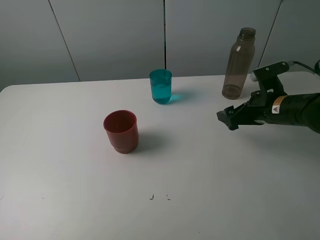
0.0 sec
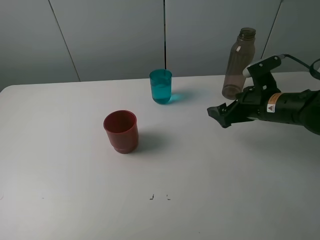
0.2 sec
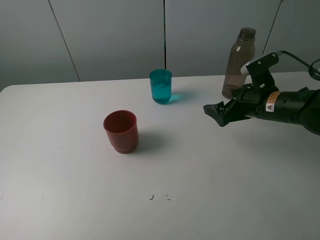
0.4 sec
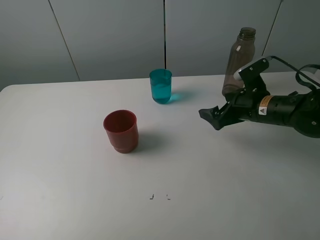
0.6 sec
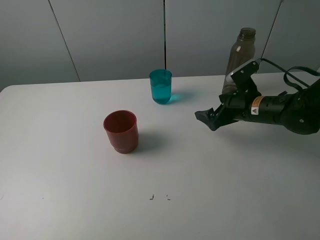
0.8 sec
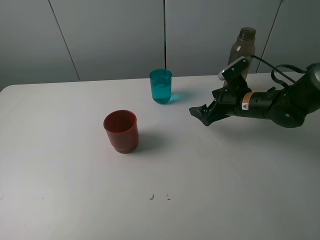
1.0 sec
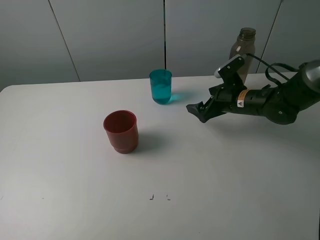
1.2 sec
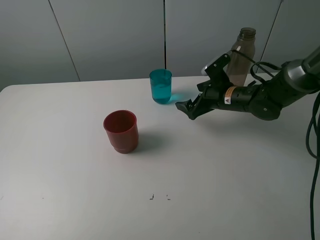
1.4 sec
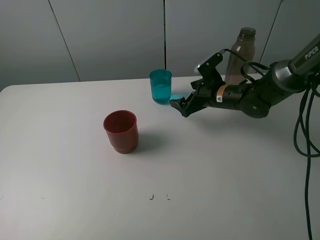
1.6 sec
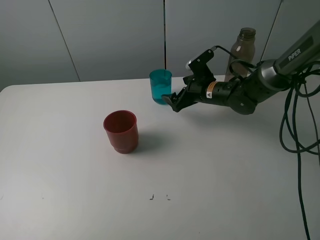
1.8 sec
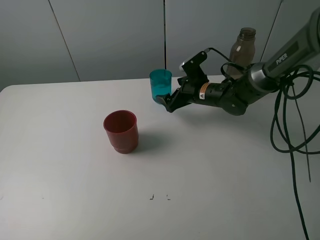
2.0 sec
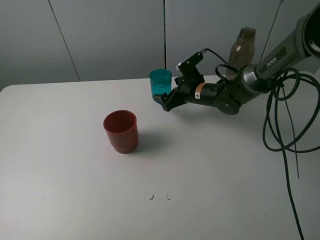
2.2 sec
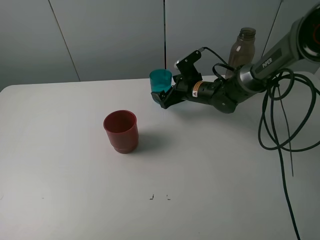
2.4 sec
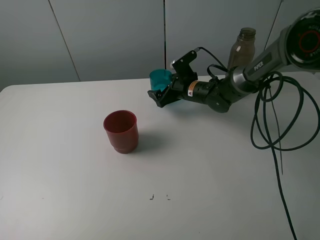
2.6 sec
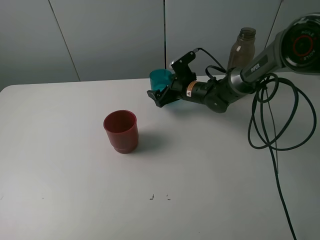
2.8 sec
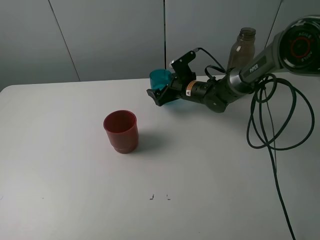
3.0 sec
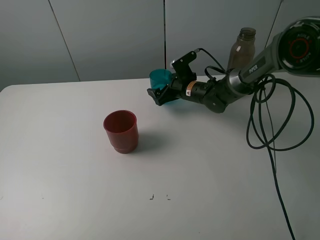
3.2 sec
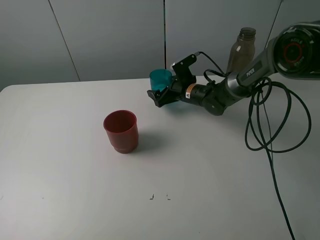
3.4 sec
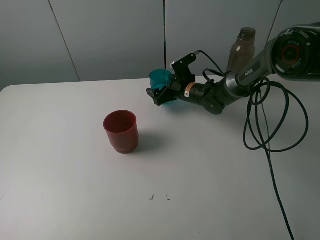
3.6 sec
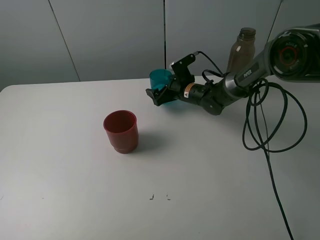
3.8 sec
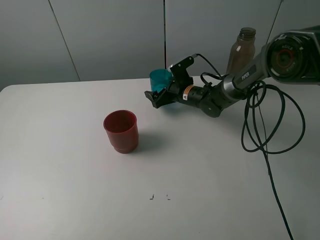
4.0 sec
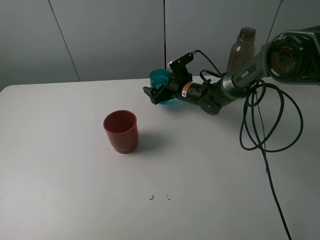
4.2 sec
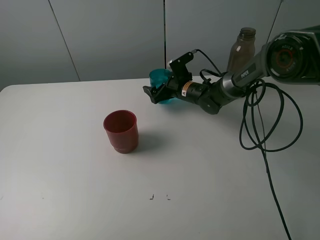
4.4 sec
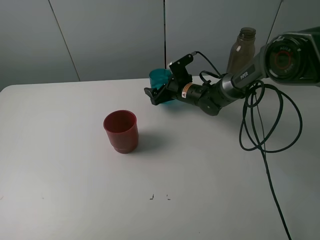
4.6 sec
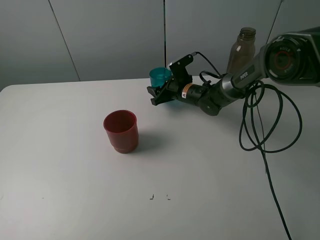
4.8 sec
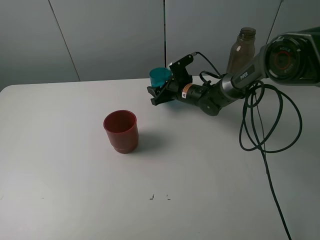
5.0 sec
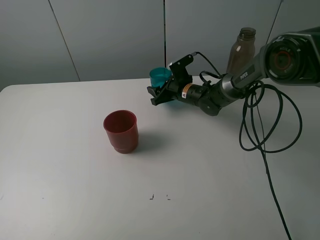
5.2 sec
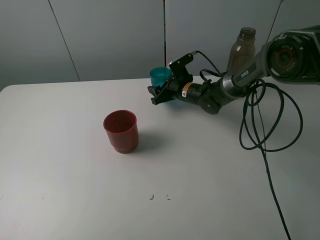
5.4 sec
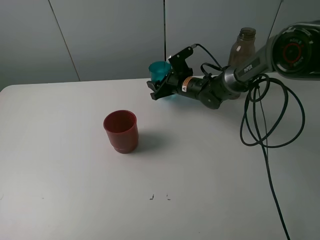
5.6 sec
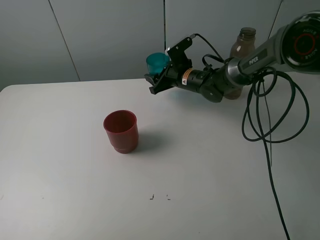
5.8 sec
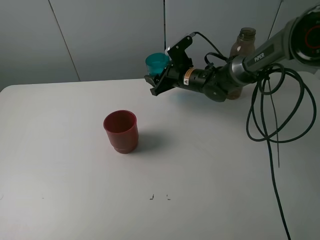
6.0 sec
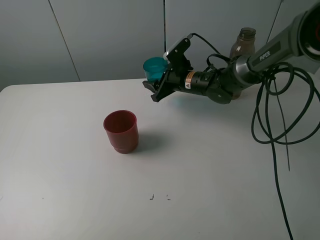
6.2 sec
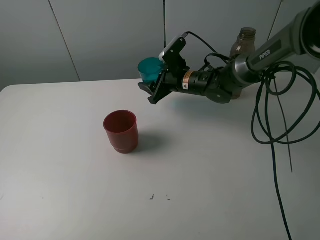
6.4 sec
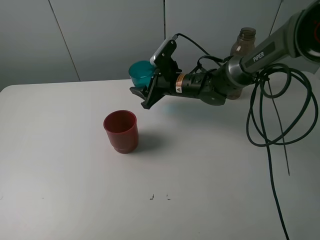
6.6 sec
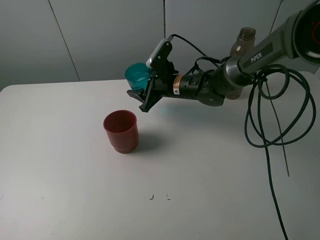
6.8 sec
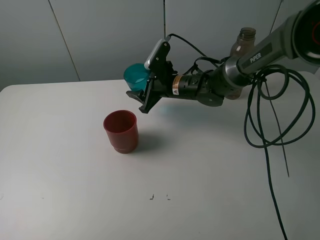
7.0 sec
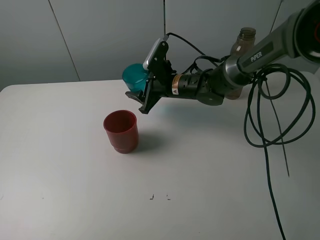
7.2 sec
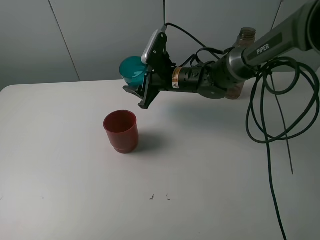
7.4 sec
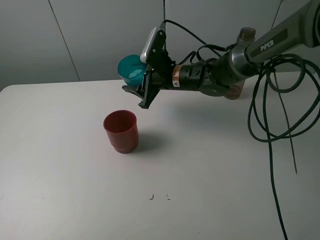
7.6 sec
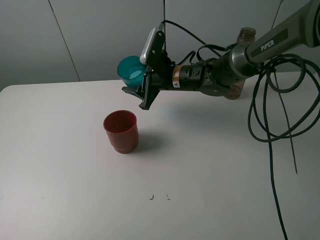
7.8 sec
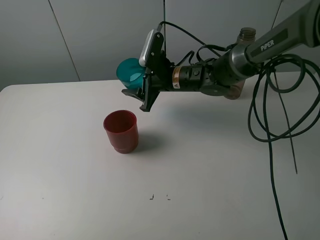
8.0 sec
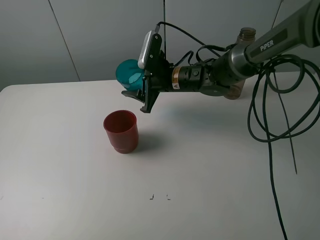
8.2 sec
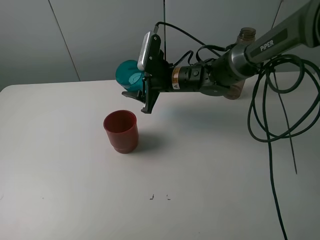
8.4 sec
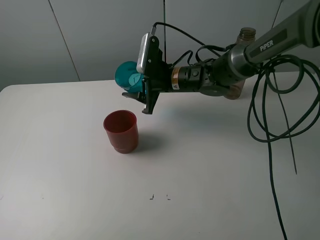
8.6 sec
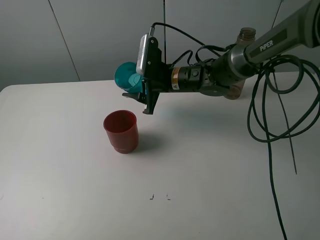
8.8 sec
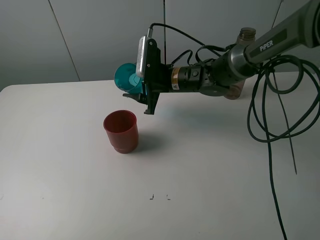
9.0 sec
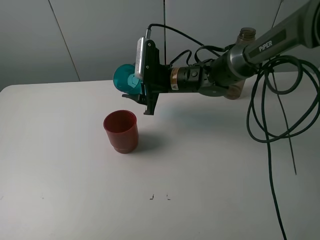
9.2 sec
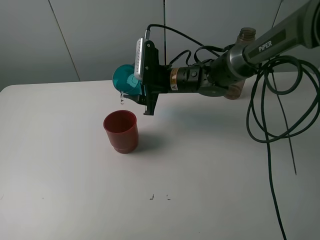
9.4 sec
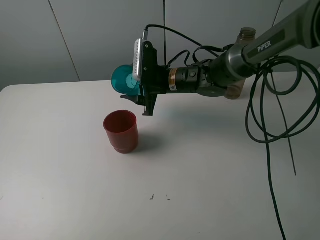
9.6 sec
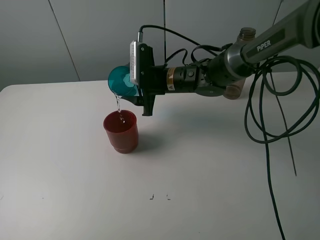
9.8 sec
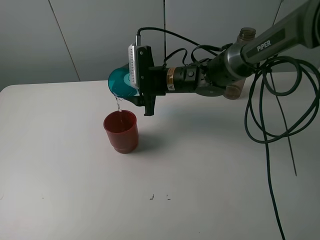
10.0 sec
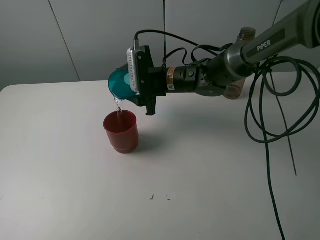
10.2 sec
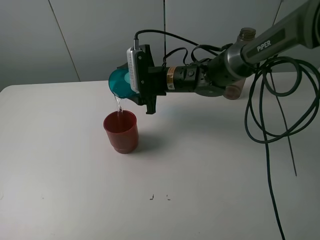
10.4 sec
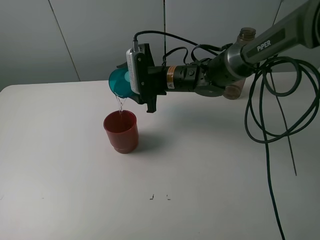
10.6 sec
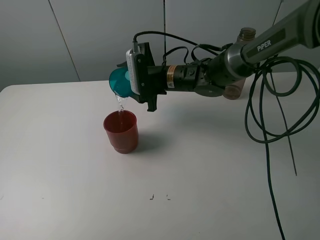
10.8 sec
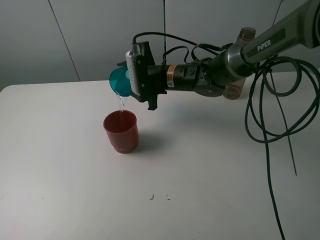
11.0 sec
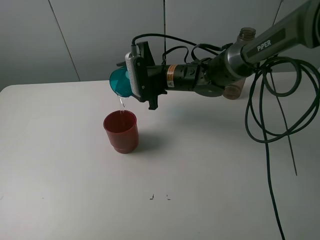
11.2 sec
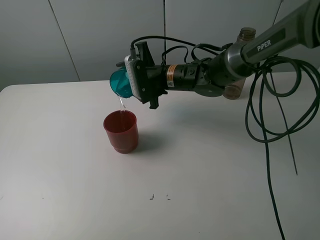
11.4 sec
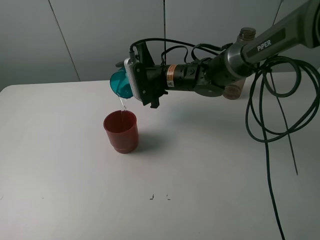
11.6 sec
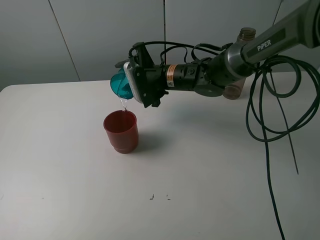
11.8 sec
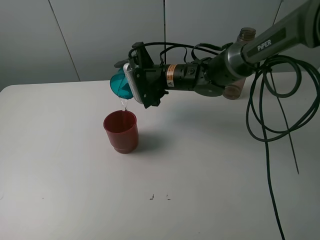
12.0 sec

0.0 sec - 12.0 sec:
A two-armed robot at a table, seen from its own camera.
Task of the whole recording: pick up the bottle and pour water into the cup, then pick up the cup containing water and pour it into another cup.
Step, 0.0 sec - 5.0 sec: Grasp the blue cup with the right gripper.
0.0 sec - 1.6 sec: The right gripper goes roughly 15 cm forward and to the left.
1.6 sec - 3.0 sec: The right gripper moves to the left and forward, about 10 cm.
3.0 sec - 4.4 sec: The grippers make only small movements.
4.4 sec - 6.0 sec: The right gripper closes.
6.0 sec - 7.6 sec: The right gripper moves about 5 cm.
7.6 sec - 9.0 sec: The grippers stay close to where they were, moving slightly.

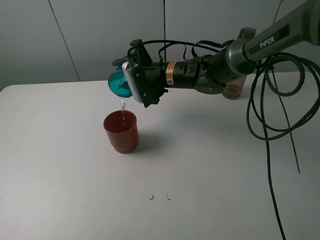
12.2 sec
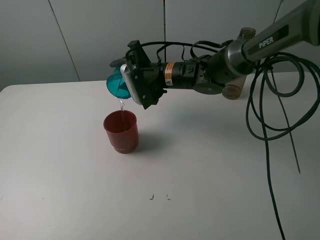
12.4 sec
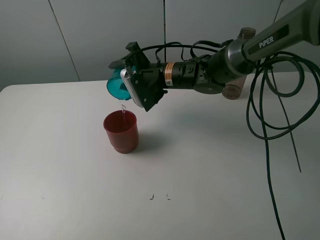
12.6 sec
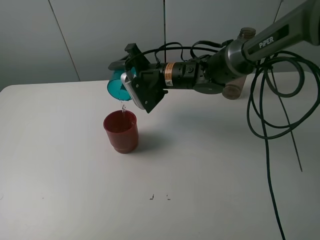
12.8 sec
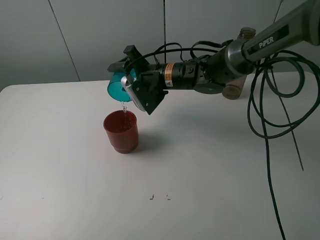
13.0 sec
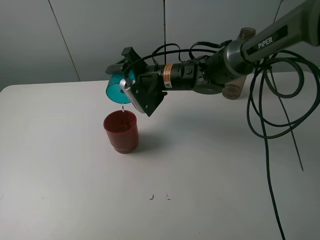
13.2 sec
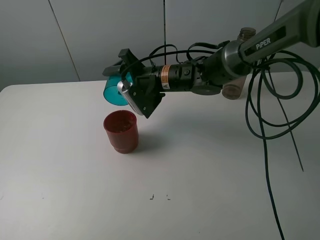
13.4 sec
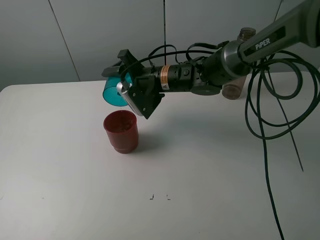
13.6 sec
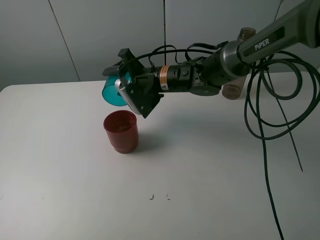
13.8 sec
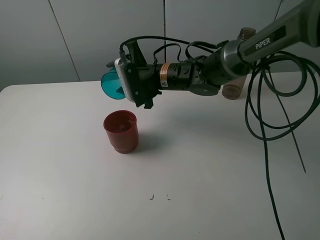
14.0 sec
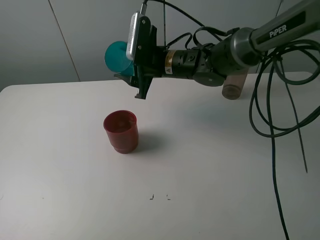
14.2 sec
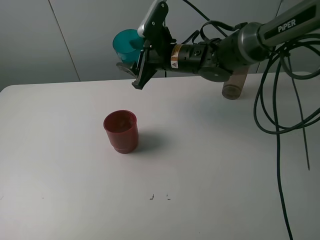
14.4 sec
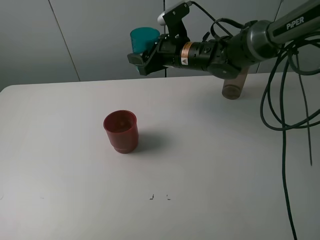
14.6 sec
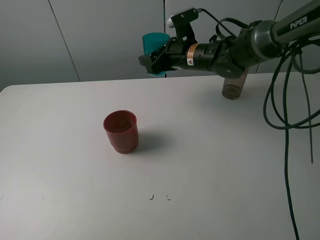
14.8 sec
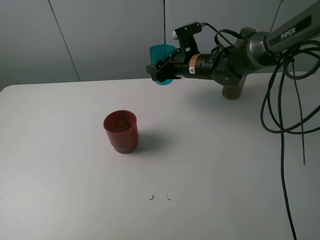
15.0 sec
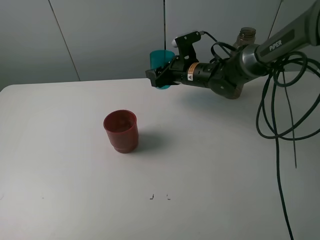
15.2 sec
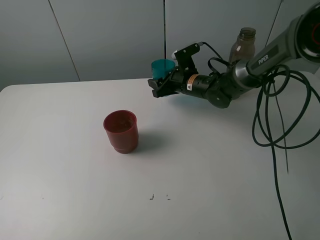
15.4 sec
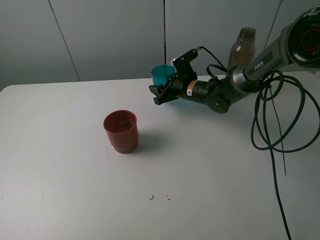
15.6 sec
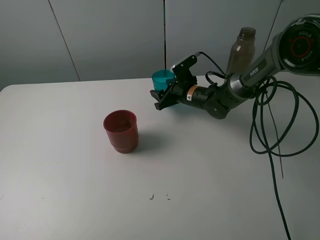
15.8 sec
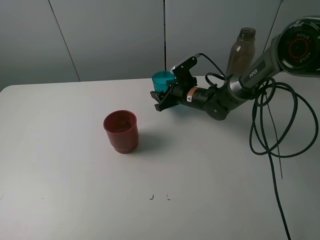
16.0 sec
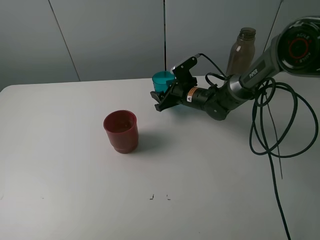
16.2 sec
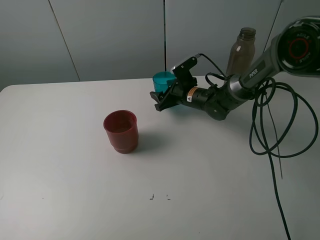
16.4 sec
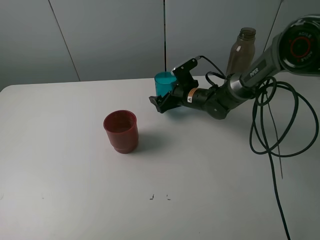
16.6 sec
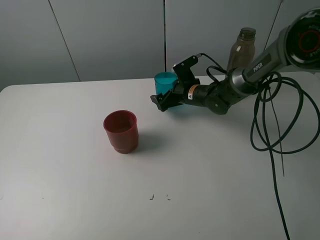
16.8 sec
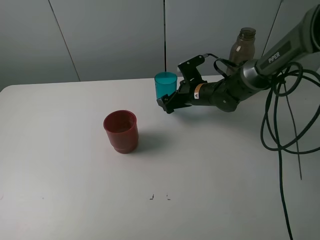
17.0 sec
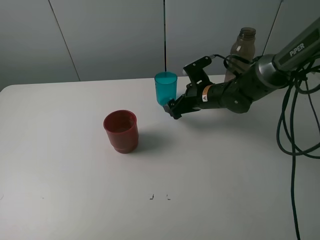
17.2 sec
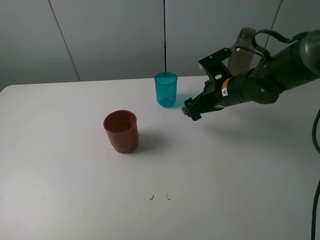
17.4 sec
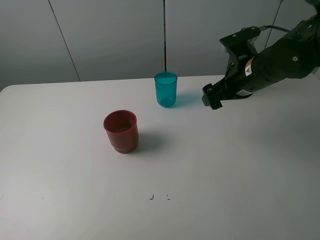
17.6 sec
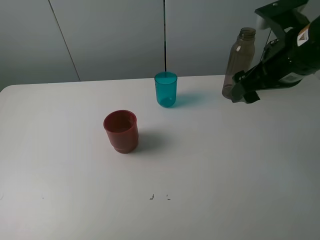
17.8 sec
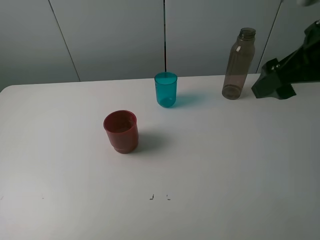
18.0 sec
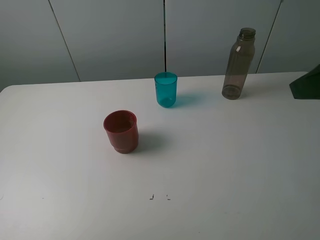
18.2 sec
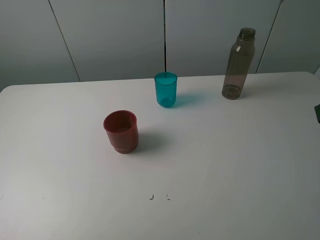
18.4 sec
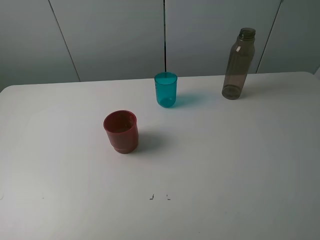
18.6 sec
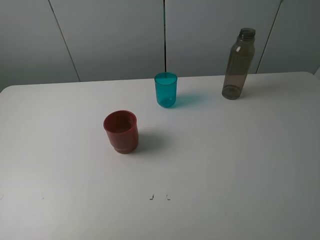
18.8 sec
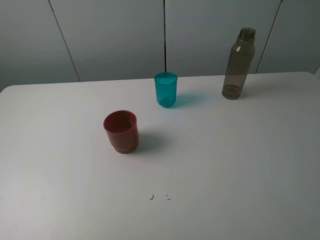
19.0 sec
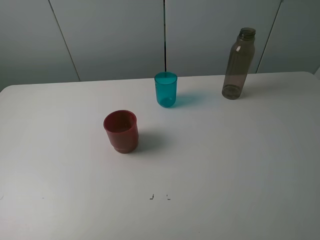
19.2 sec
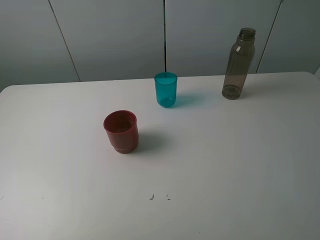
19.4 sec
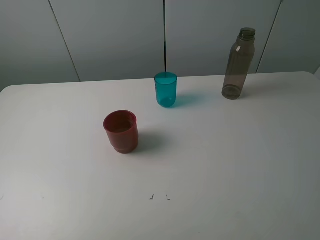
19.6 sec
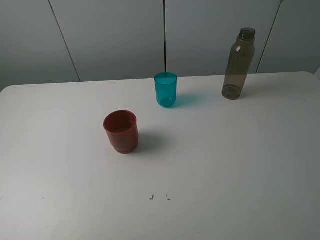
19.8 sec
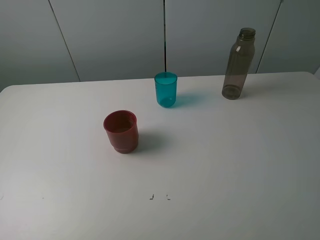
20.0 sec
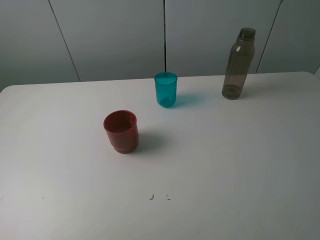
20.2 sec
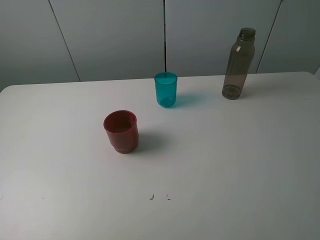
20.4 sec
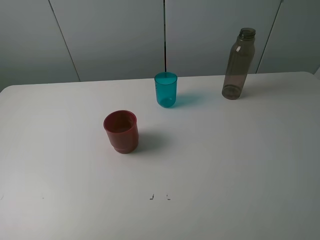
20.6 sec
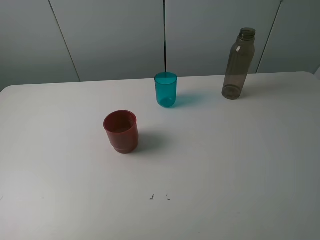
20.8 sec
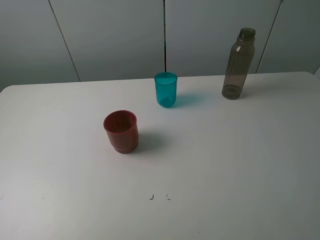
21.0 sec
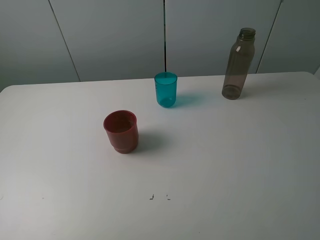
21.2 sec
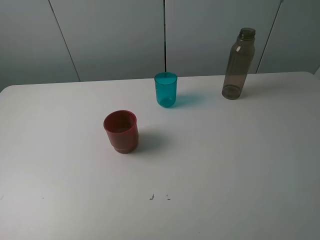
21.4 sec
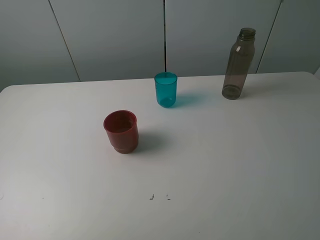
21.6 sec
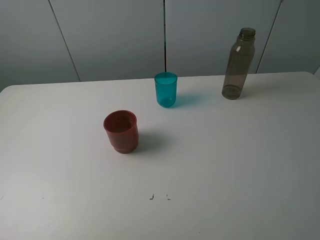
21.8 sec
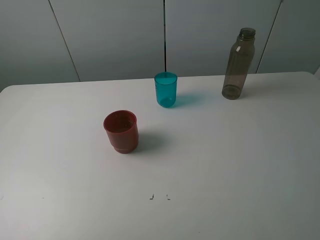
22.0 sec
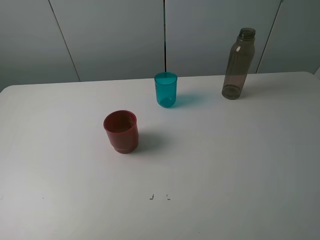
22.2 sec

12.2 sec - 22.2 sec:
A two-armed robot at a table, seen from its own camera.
Task of the whole recording: pick up the bottle and pour water into the cup, then pick up the cup containing water and pour it into another cup.
Step, 14.0 sec - 16.8 sec: Place the blue cup with the right gripper.
12.2 sec - 13.6 sec: The grippers make only small movements.
13.6 sec - 15.0 sec: The right gripper shifts roughly 10 cm to the right and forward.
15.0 sec - 16.4 sec: The right gripper goes some 10 cm downward.
16.4 sec - 18.0 sec: The right gripper is displaced upward, backward and to the right by some 40 cm, and opens up.
18.0 sec - 19.4 sec: The right gripper travels backward by about 20 cm.
20.8 sec - 22.2 sec: The two grippers keep their place.
